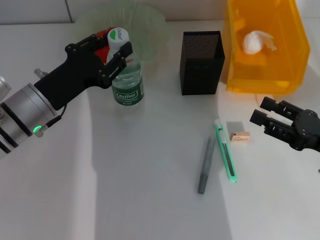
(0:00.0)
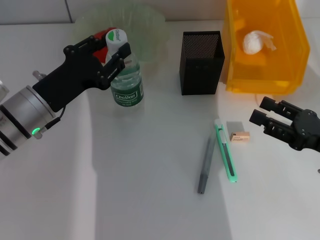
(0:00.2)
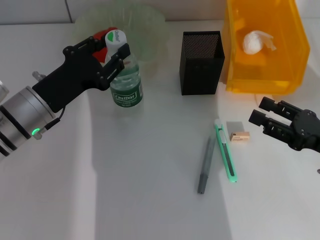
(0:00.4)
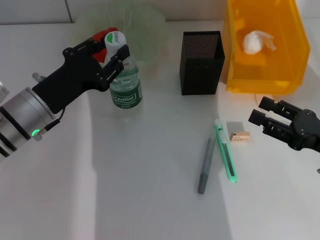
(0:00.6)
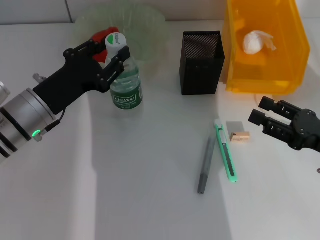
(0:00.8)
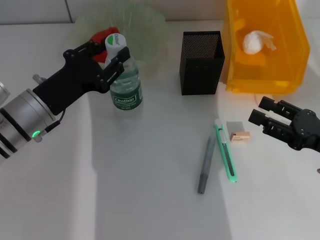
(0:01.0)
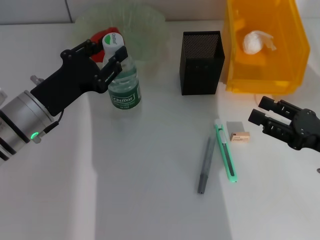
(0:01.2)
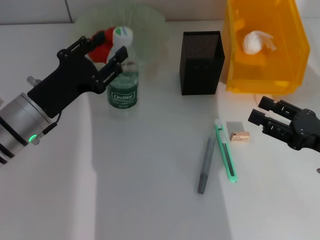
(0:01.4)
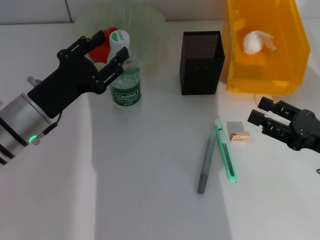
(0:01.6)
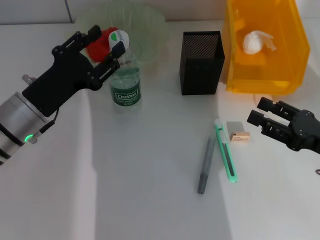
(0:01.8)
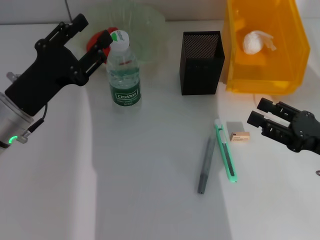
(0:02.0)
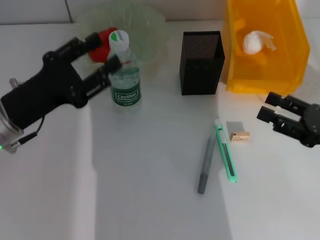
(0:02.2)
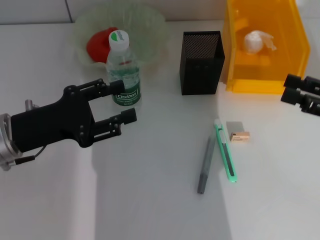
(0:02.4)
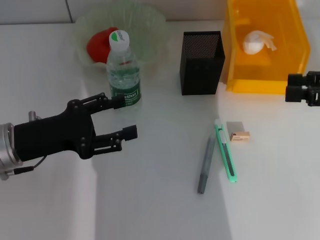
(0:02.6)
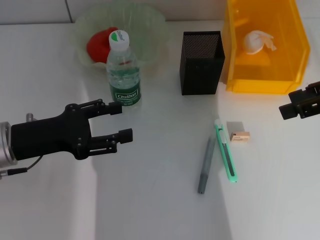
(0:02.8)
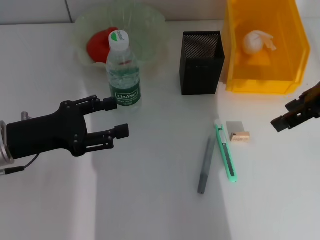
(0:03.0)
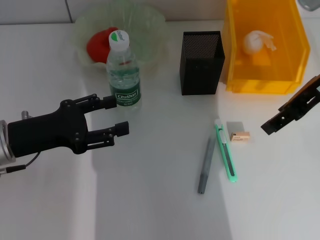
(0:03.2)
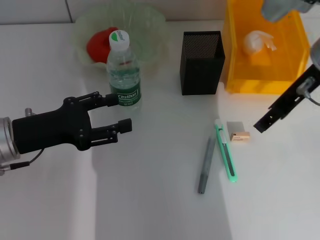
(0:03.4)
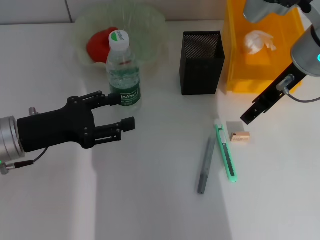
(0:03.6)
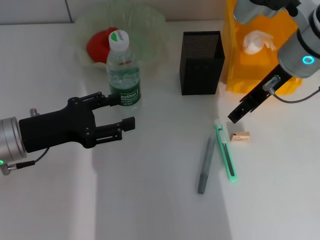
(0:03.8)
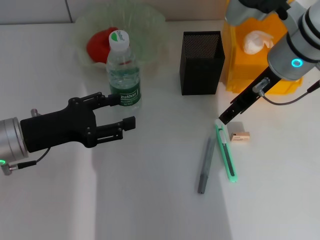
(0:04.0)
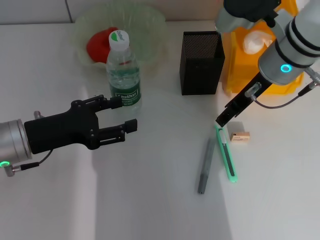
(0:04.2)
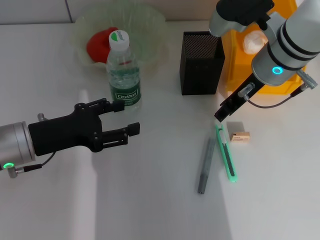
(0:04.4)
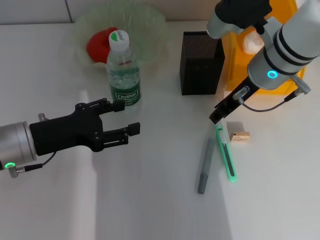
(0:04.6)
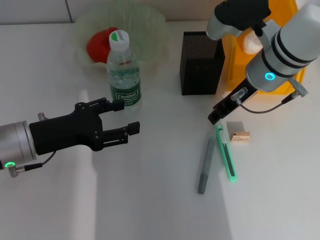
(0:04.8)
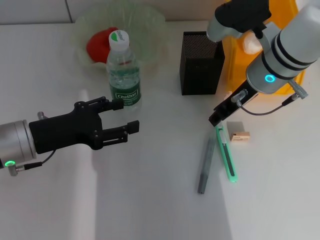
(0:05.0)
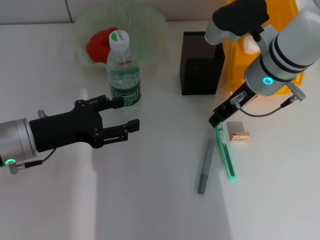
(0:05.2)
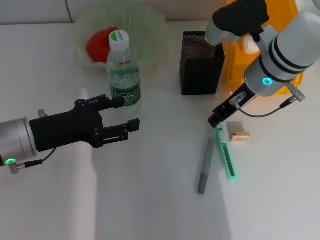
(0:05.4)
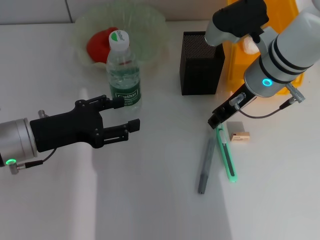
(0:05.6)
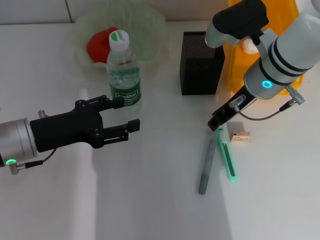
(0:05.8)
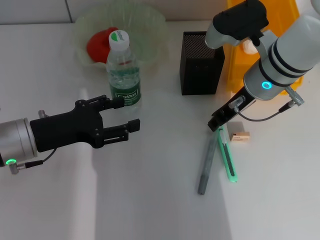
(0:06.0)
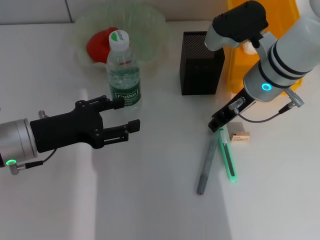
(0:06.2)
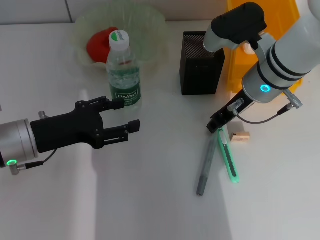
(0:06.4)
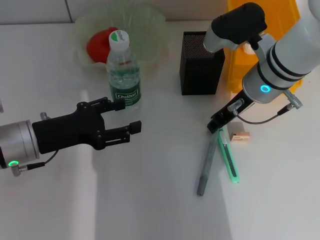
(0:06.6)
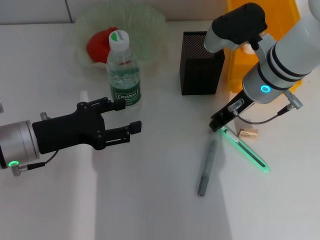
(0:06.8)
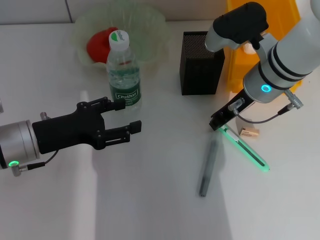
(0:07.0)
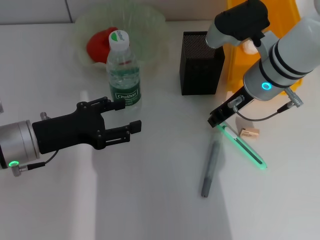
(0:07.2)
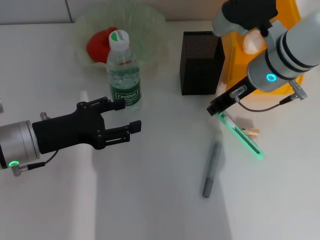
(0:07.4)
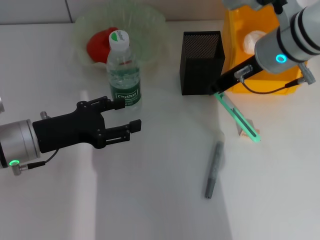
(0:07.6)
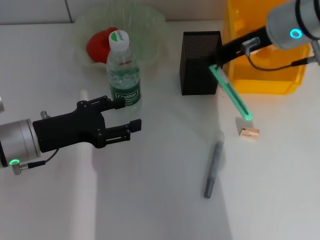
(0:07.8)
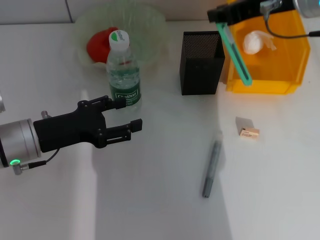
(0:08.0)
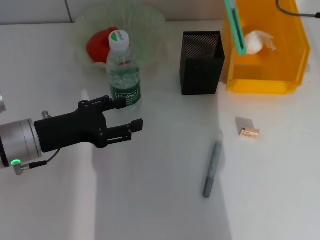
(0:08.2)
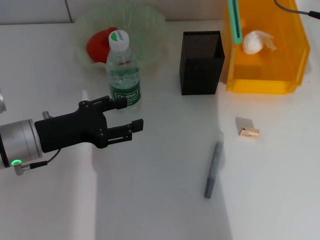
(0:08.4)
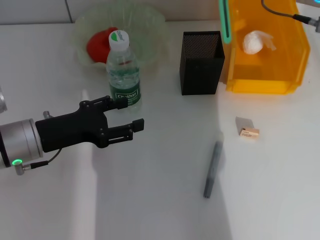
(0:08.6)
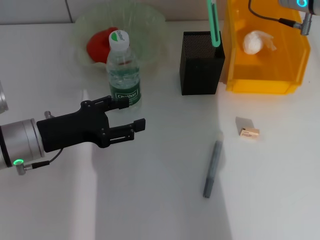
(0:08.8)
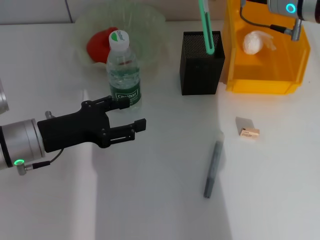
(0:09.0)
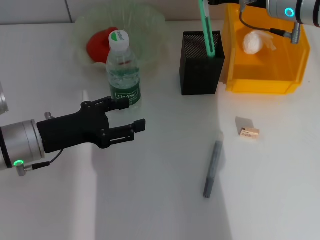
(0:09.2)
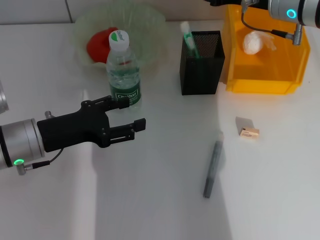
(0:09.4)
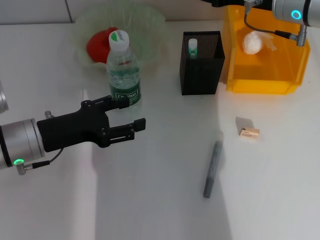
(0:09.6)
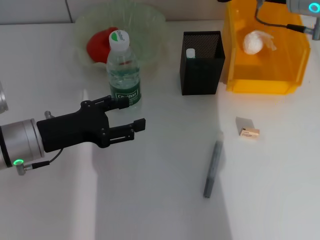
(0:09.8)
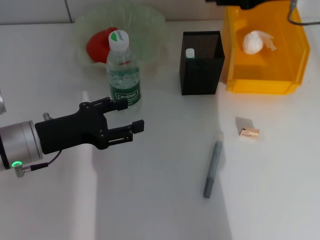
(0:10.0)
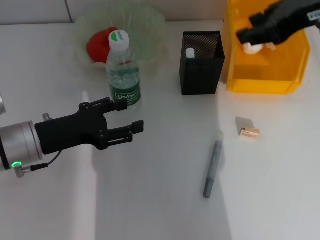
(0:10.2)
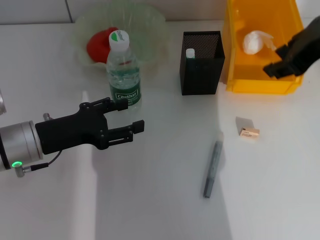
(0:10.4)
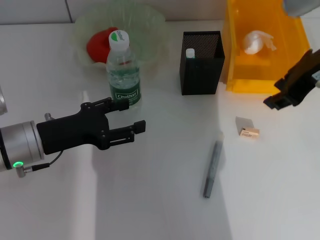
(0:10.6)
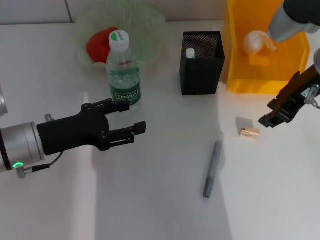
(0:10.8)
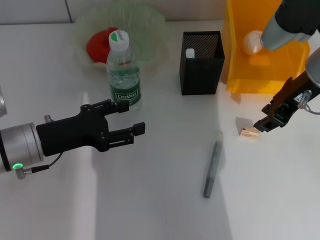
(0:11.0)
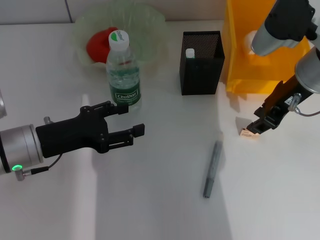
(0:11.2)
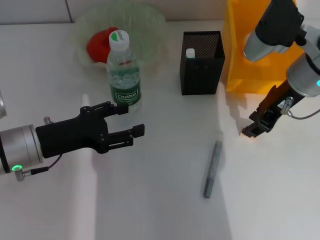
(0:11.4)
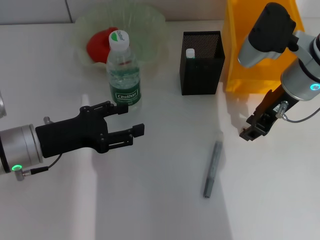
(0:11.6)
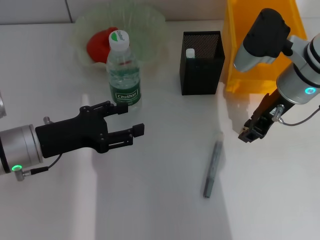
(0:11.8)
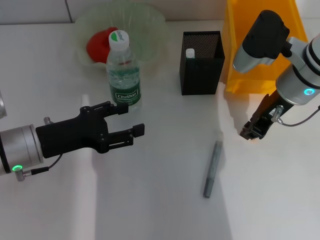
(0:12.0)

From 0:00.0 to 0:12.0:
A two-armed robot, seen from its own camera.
Step, from 0:01.8 to 0:07.0: Grab the blue utility knife with the right hand.
Step, from 0:07.2 to 0:09.2: Place the blue utility knife into the pen holder with the right hand.
Step, from 0:09.4 to 0:11.8: Grab the eraser with the right hand.
From 0:00.0 to 0:01.6: The grippers stay close to where they were, moving slightly.
From 0:01.6 to 0:03.0: The right gripper shifts approximately 20 cm upward and forward. Meanwhile the left gripper moves some 5 cm, and opens up.
From 0:03.0 to 0:04.4: The right gripper heads to the left, downward and forward, covering approximately 15 cm.
From 0:04.4 to 0:06.0: There are only small adjustments of the grippers.
From 0:06.0 to 0:07.6: The right gripper closes its fingers.
From 0:07.6 to 0:09.0: The right gripper travels upward and back again, roughly 10 cm each way.
From 0:09.0 to 0:10.4: The right gripper travels backward and upward by approximately 10 cm.
From 0:10.4 to 0:12.0: The right gripper moves downward, some 15 cm.

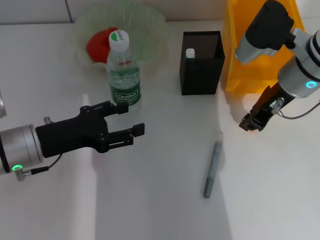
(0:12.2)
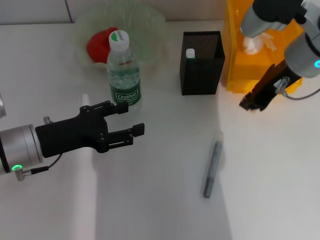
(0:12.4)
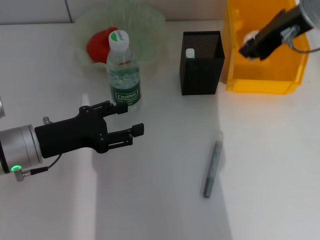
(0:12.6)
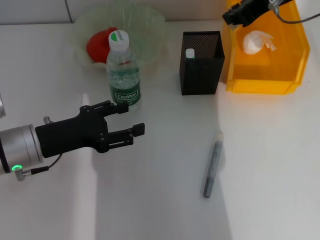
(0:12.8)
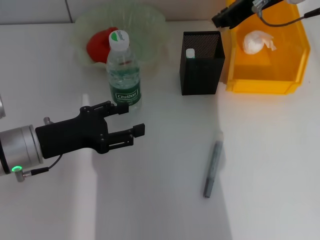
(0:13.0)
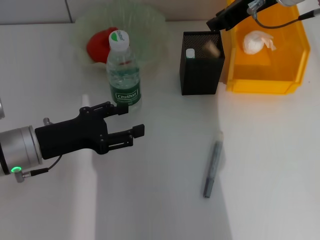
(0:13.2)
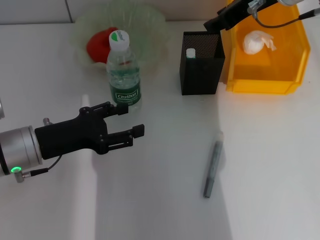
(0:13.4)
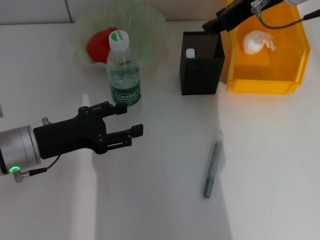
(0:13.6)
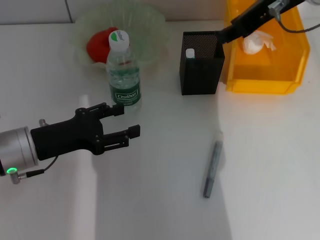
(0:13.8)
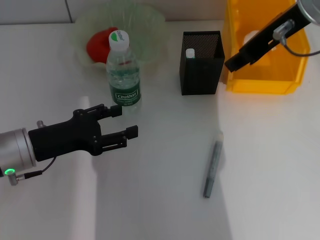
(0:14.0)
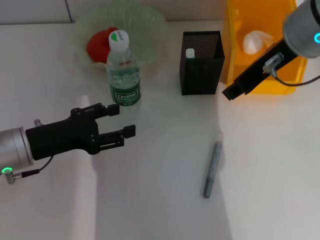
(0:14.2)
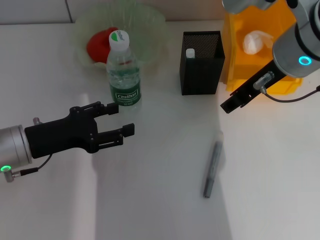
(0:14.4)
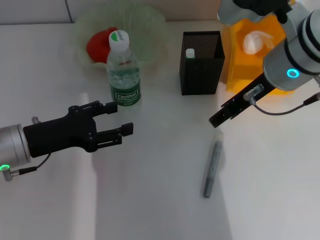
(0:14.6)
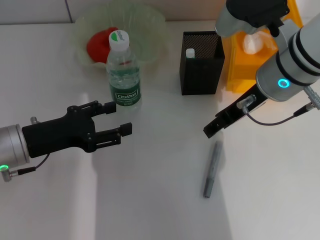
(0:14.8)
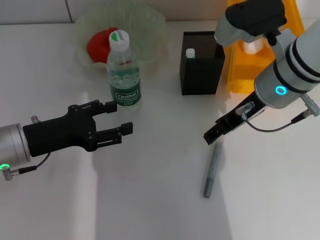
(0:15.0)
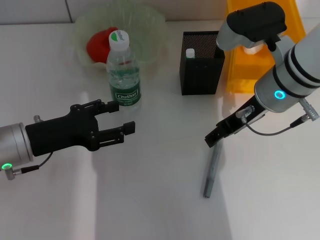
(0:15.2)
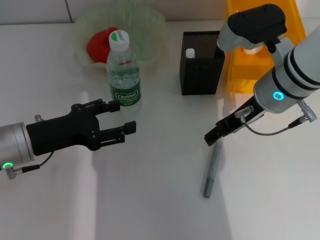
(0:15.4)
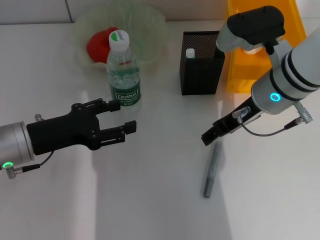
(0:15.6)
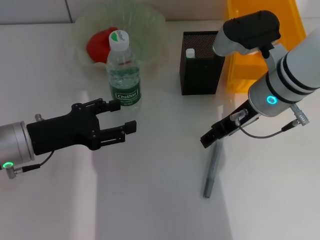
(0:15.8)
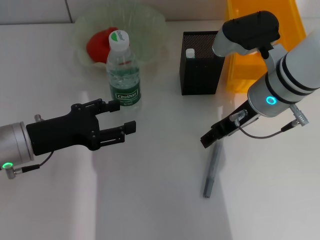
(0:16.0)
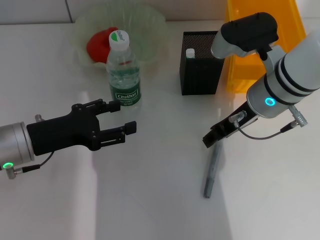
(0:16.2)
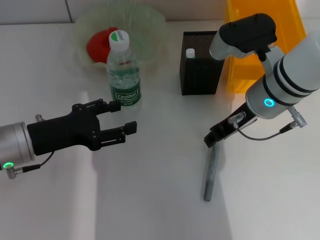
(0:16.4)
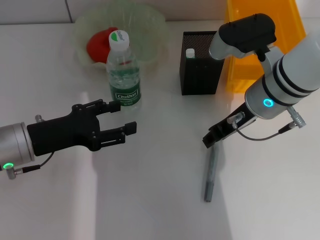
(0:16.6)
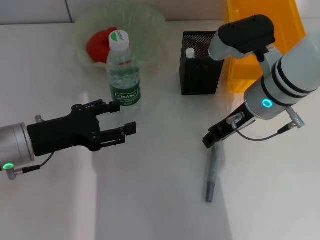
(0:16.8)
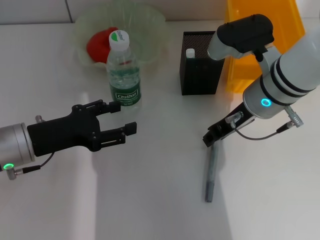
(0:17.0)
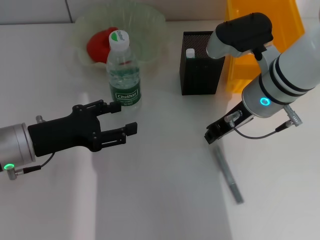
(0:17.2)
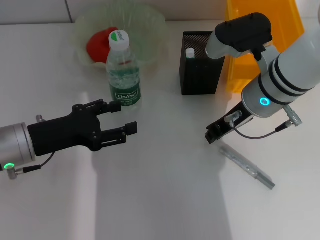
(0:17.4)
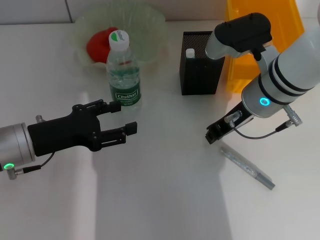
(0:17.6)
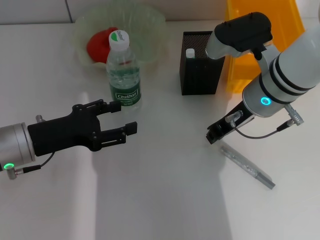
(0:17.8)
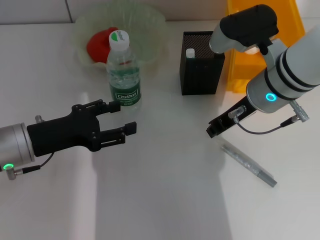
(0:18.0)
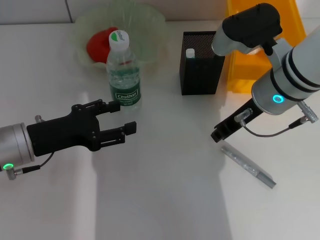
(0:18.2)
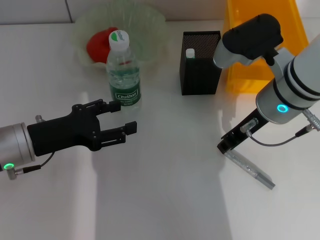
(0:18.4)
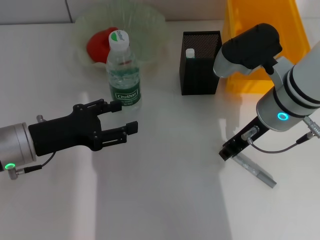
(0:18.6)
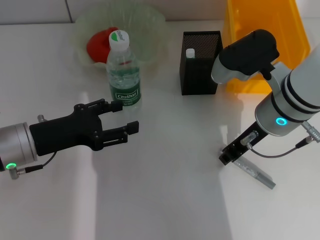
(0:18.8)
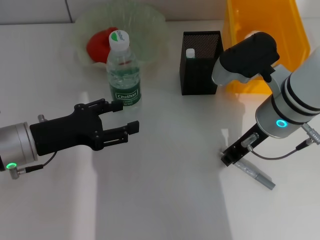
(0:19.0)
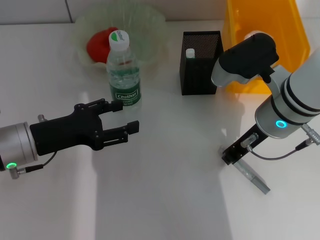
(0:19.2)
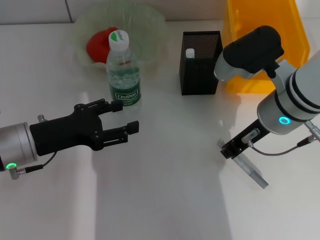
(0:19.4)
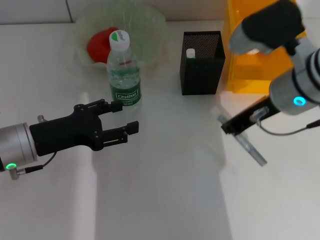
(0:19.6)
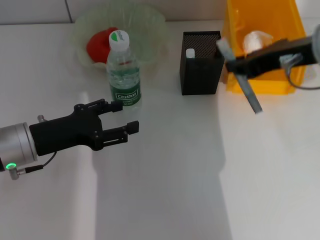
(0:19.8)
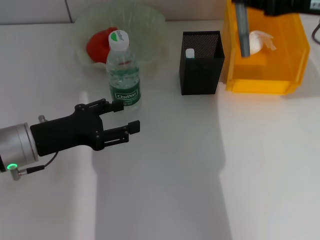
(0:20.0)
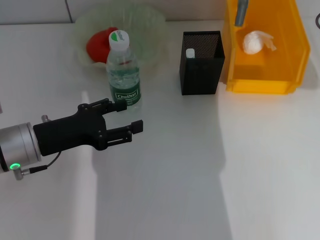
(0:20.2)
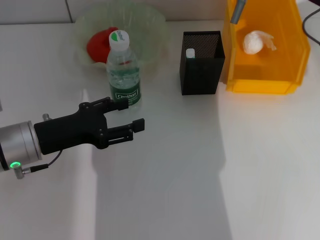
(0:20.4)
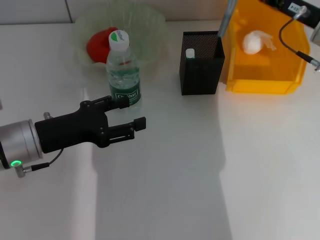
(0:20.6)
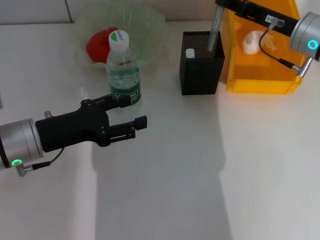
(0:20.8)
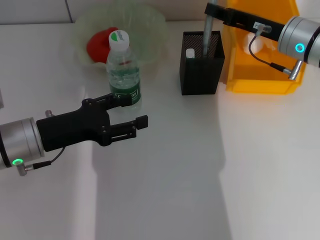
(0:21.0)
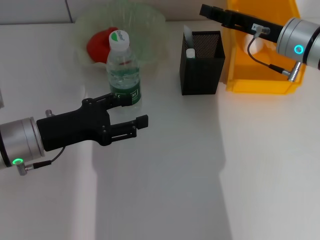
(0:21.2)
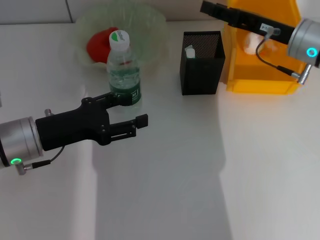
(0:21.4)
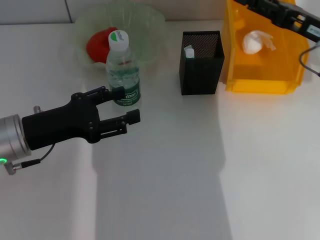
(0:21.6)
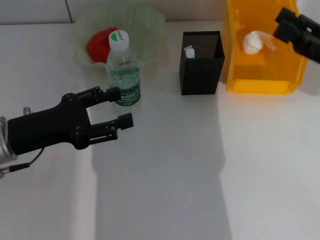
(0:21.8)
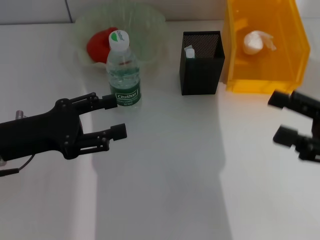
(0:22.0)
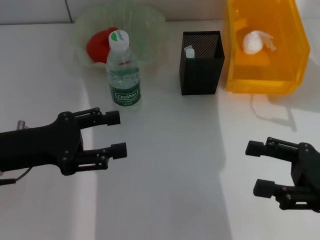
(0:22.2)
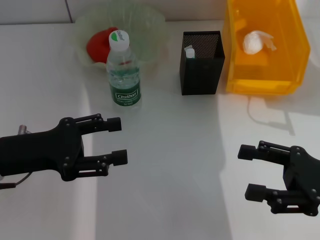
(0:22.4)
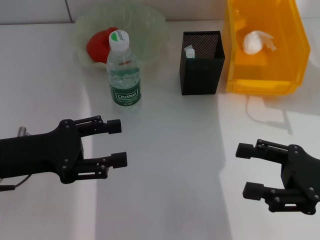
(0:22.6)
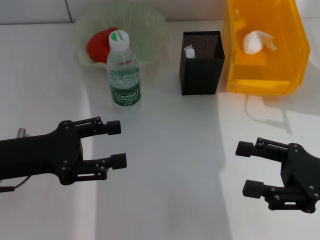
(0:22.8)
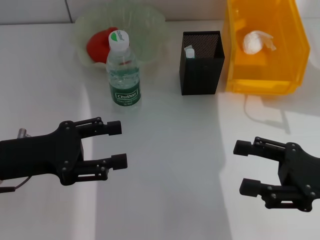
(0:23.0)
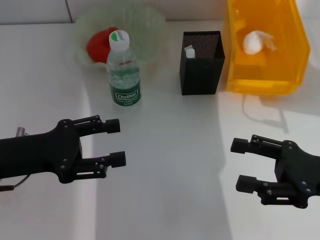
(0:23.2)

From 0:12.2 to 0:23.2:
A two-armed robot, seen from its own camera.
Step, from 0:12.2 to 0:13.2: Put the eraser into the pen holder with the right hand.
Step, from 0:13.4 to 0:18.8: Grab the gray glue with the right hand.
Step, from 0:19.2 to 0:21.2: Place the gray glue into the pen holder with the right hand.
From 0:12.2 to 0:13.8: The right gripper is displaced upward by approximately 15 cm, and opens up.
From 0:13.8 to 0:15.4: The right gripper is displaced downward by roughly 15 cm, and opens.
From 0:15.4 to 0:17.0: The right gripper closes up.
From 0:17.0 to 0:18.4: The grippers move only a little.
From 0:18.4 to 0:20.0: The right gripper is displaced upward and to the right by approximately 15 cm.
From 0:20.0 to 0:21.6: The right gripper shifts some 10 cm downward, and opens up.
From 0:21.6 to 0:23.2: The right gripper shifts some 15 cm backward and downward.
